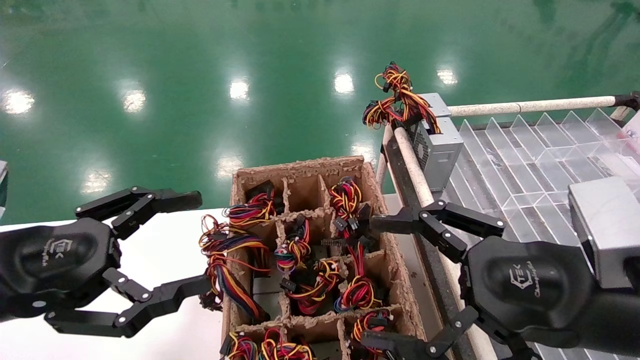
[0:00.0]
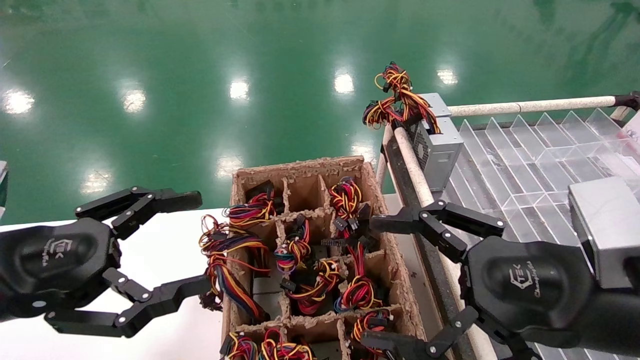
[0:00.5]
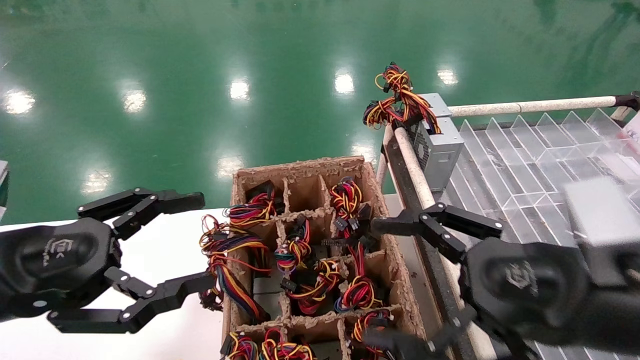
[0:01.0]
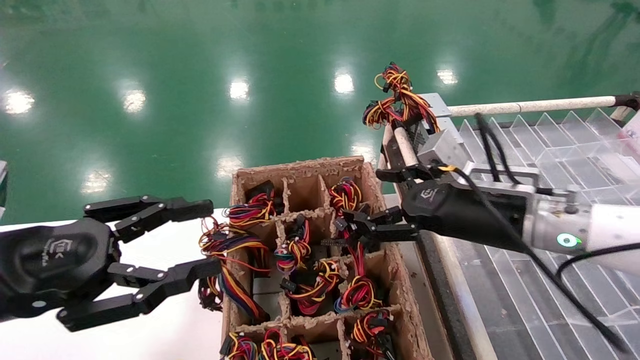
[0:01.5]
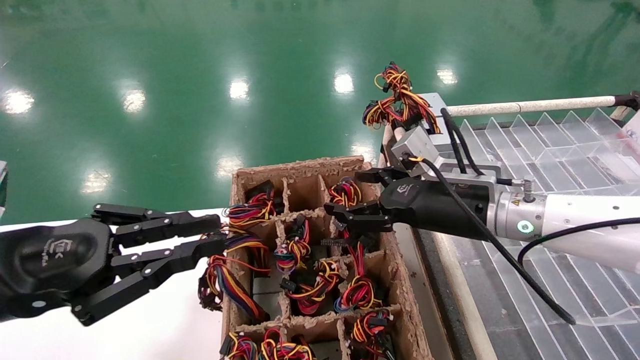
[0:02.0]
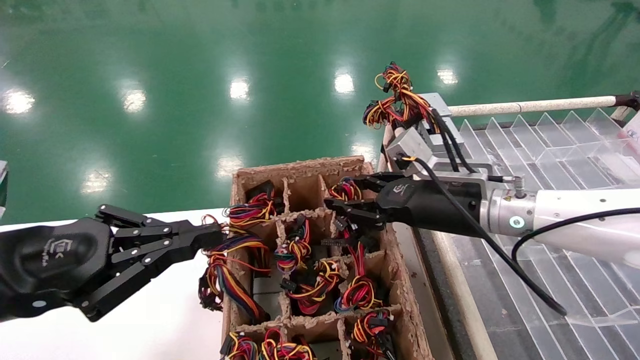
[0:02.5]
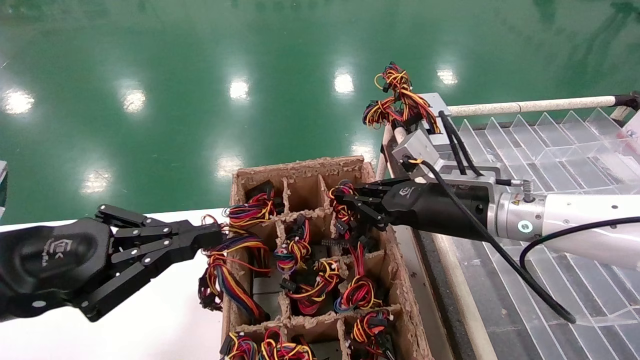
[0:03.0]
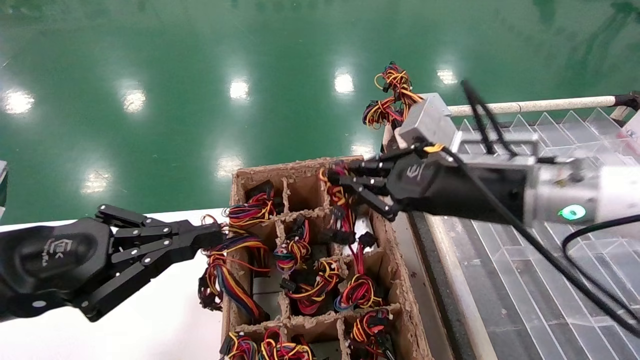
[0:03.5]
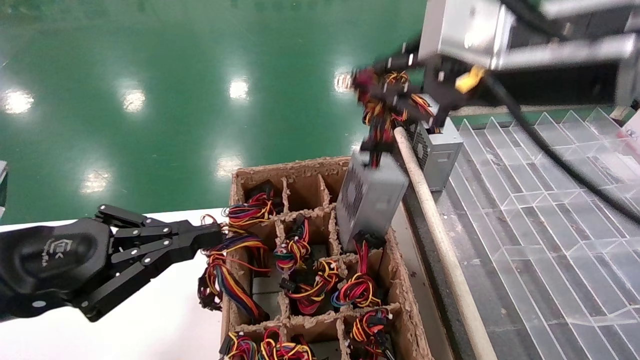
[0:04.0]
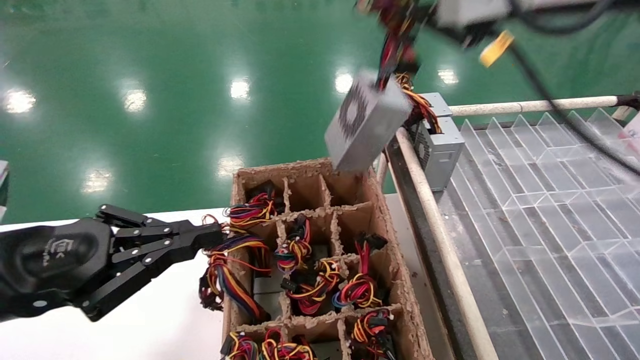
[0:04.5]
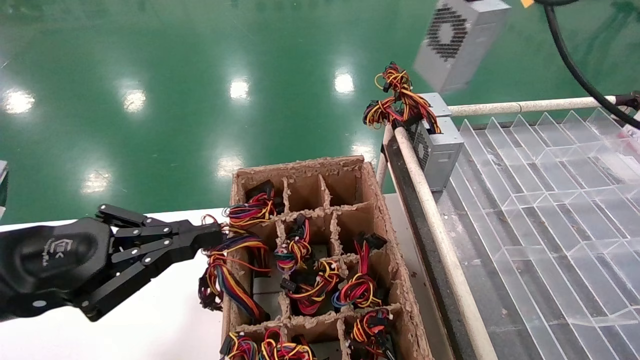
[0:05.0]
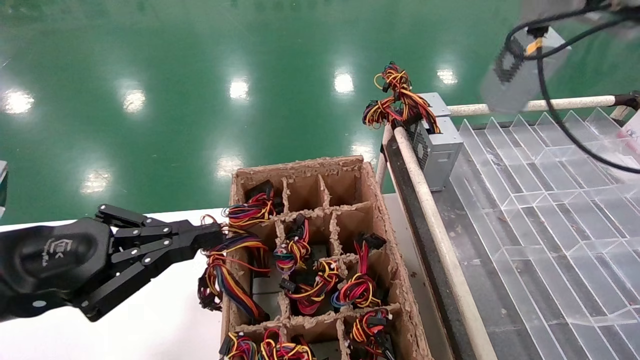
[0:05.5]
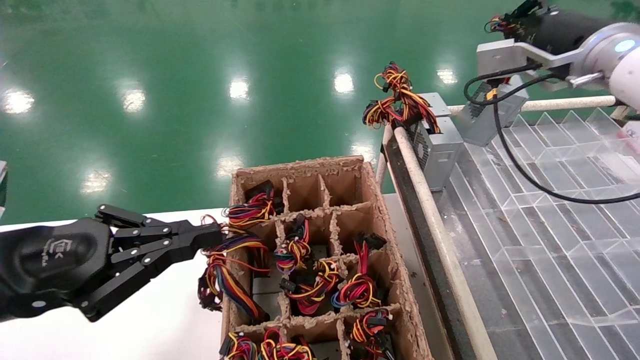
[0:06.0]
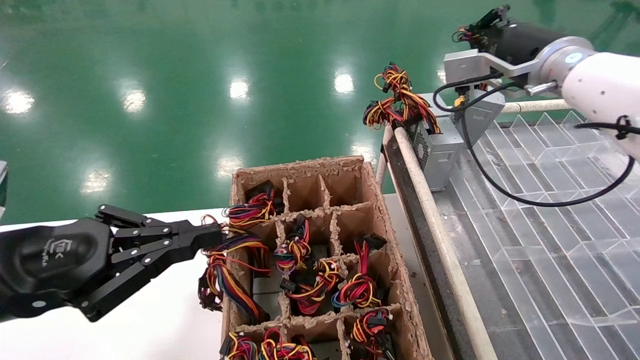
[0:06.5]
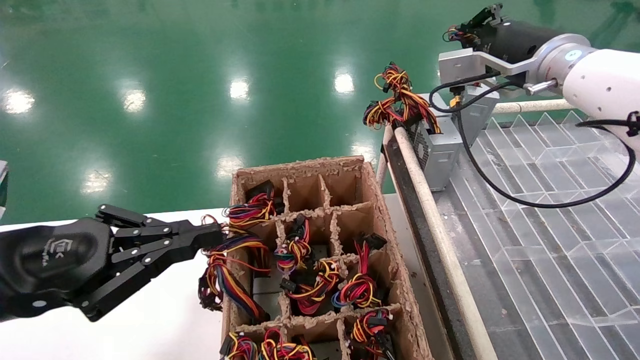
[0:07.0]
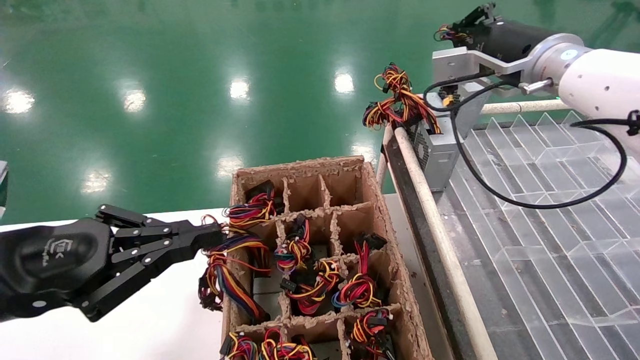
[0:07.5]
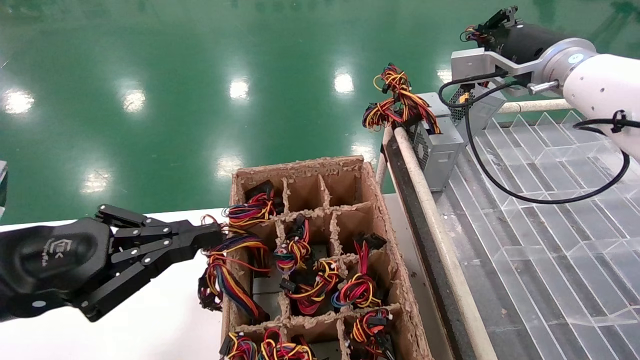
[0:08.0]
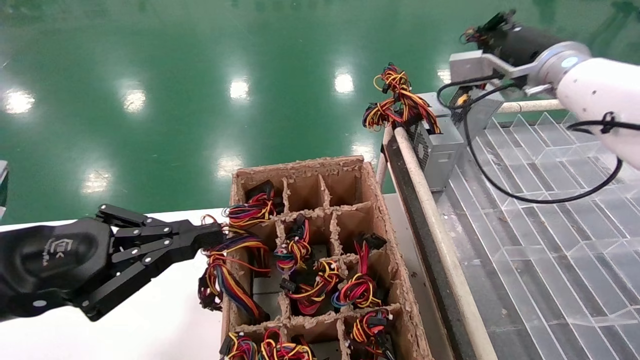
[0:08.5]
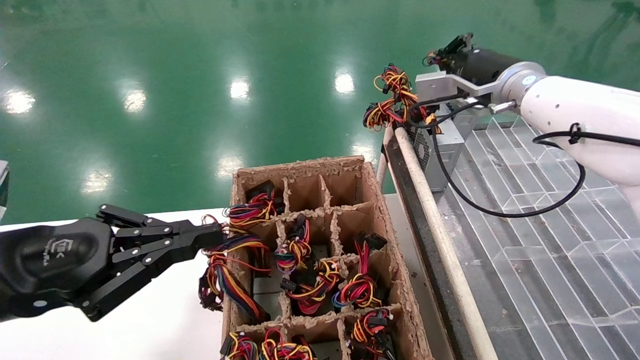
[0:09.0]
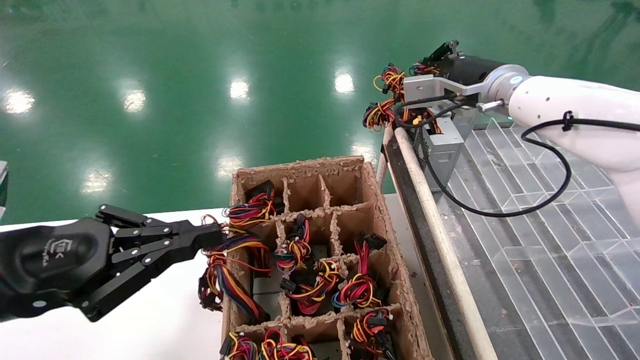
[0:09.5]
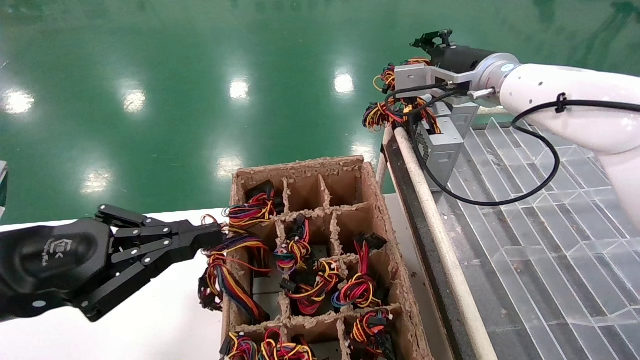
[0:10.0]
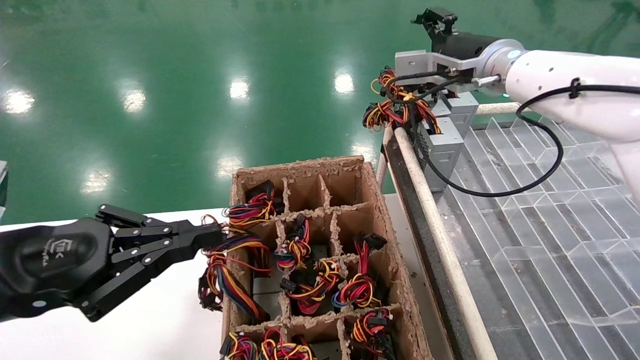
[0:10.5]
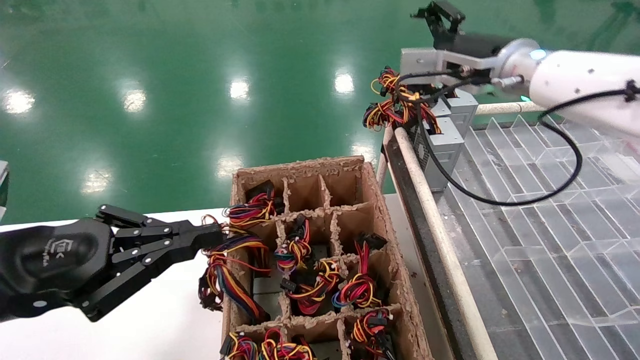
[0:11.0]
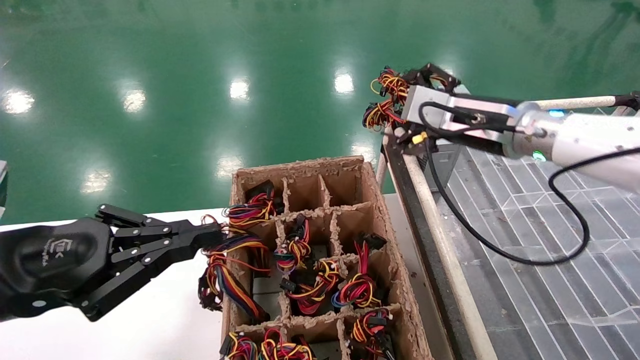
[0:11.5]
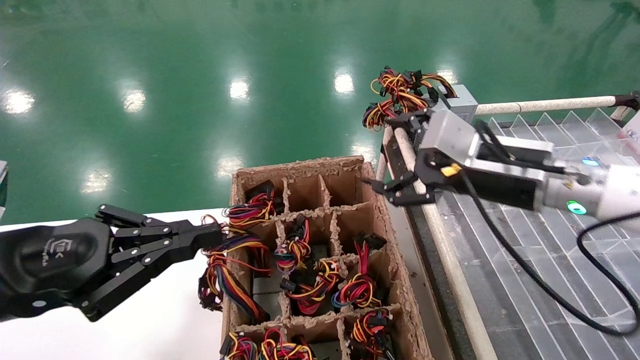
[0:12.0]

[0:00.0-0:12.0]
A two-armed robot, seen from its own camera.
Step, 0:01.5 to 0:03.0: Grab the main unit power supply from the containment box.
Step, 0:03.5 to 0:10.5: Place the main unit power supply in the designated area.
0:00.0 to 0:02.0: The right gripper goes roughly 15 cm forward. Meanwhile the left gripper closes its fingers.
0:02.0 to 0:04.0: The right gripper heads upward and backward, covering approximately 20 cm, and closes its fingers.
0:04.0 to 0:06.0: The right gripper goes some 15 cm forward and to the right.
0:06.0 to 0:08.0: There are only small adjustments of the grippers.
0:08.0 to 0:10.0: The right gripper is displaced to the left by about 5 cm.
0:10.0 to 0:12.0: The right gripper heads backward and downward, covering approximately 15 cm, and opens up.

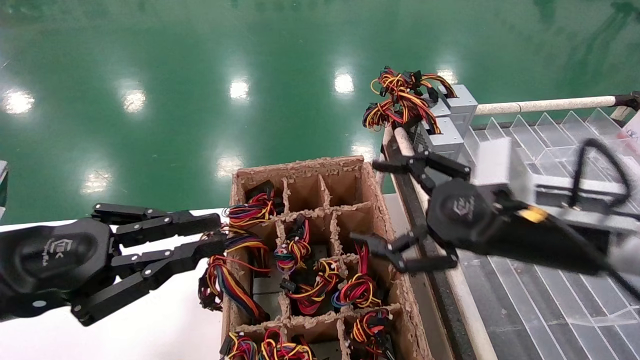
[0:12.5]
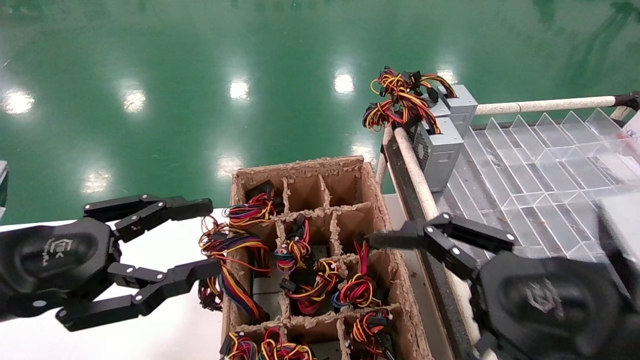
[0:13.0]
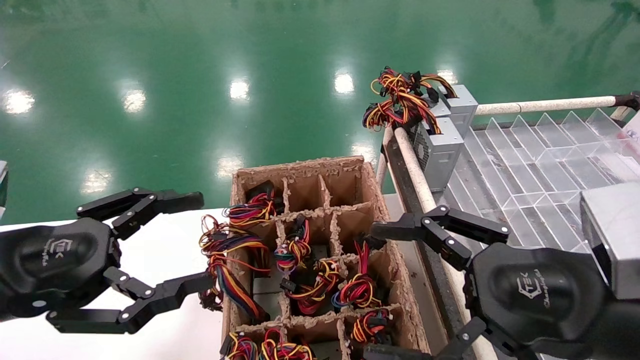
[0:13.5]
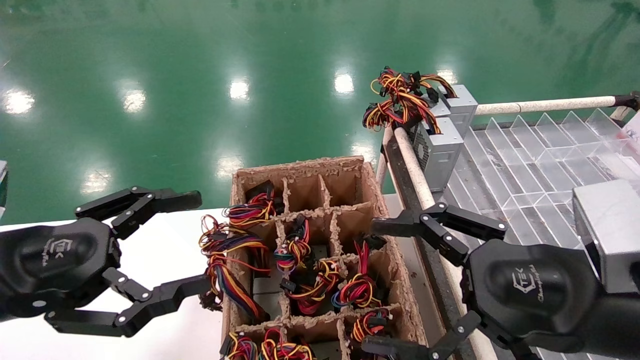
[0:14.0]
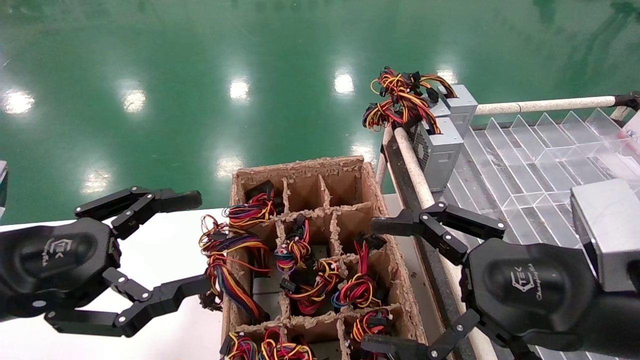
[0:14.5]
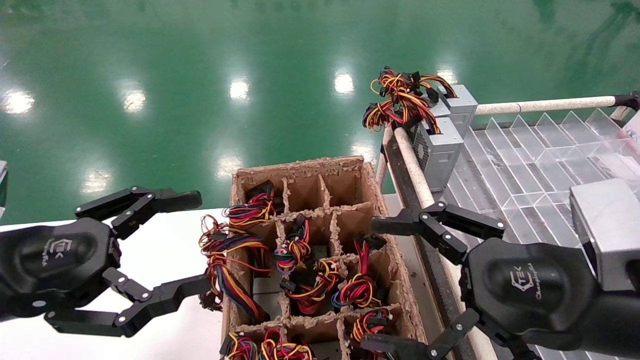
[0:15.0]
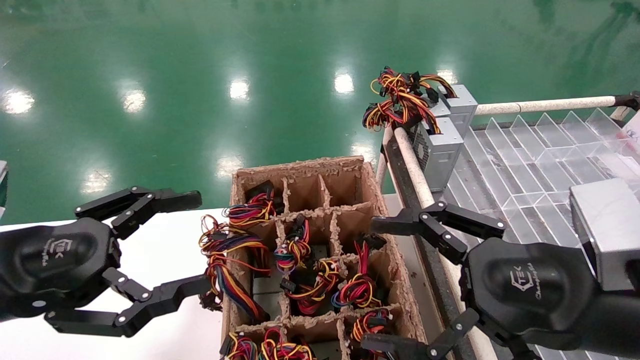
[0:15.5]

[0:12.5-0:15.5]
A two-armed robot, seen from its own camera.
0:12.5 to 0:14.0: The left gripper opens up, while the right gripper heads backward, covering about 5 cm.
0:14.0 to 0:15.5: Both grippers stay about where they are.

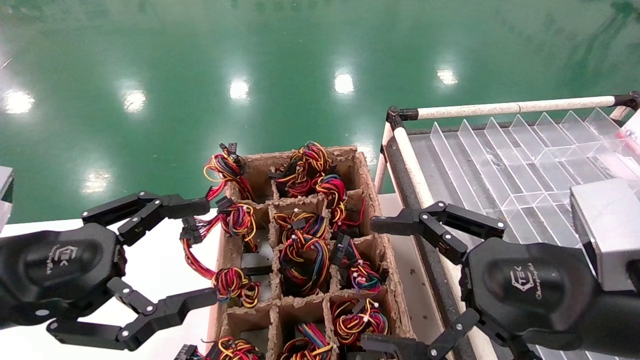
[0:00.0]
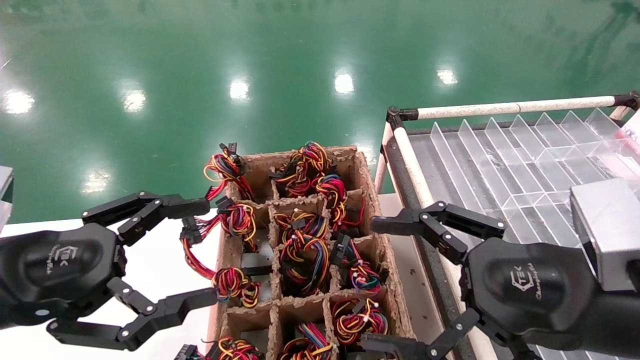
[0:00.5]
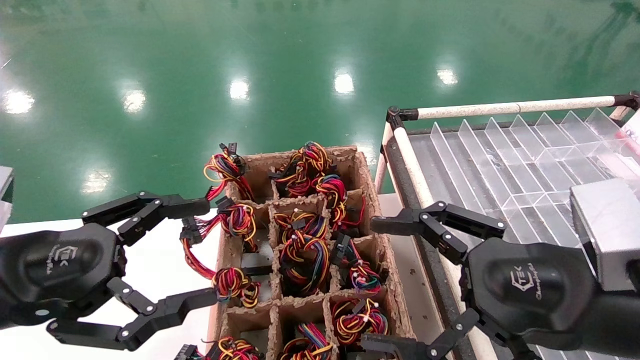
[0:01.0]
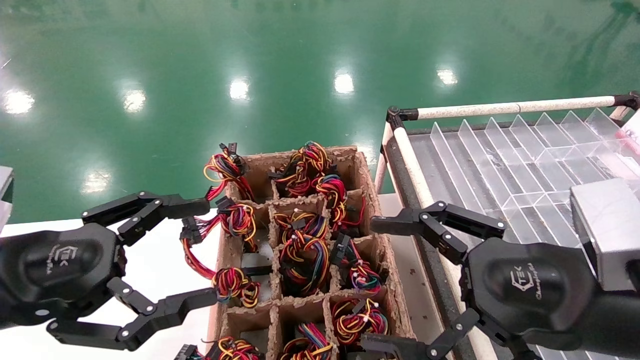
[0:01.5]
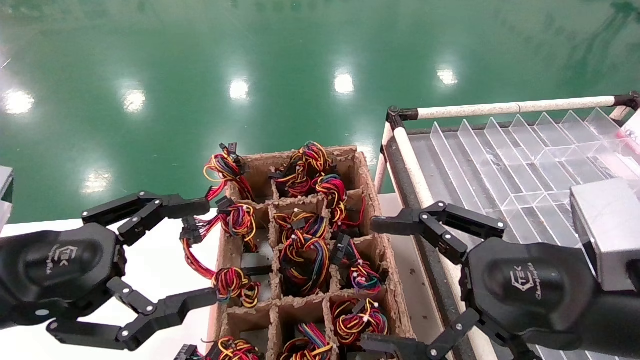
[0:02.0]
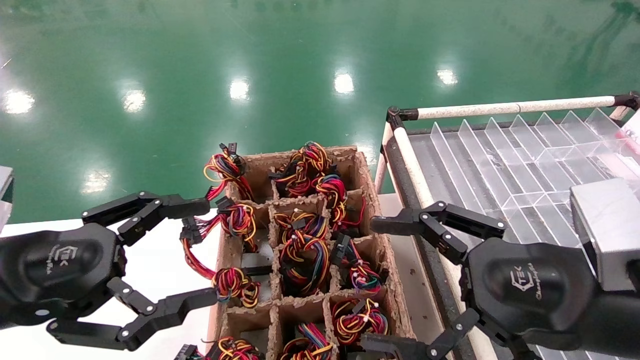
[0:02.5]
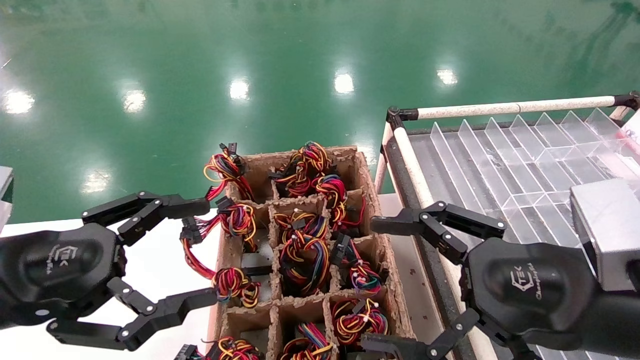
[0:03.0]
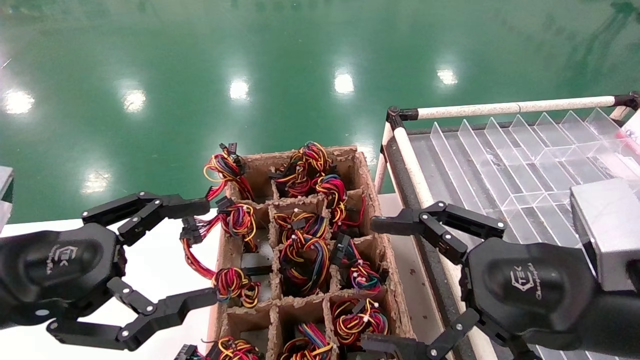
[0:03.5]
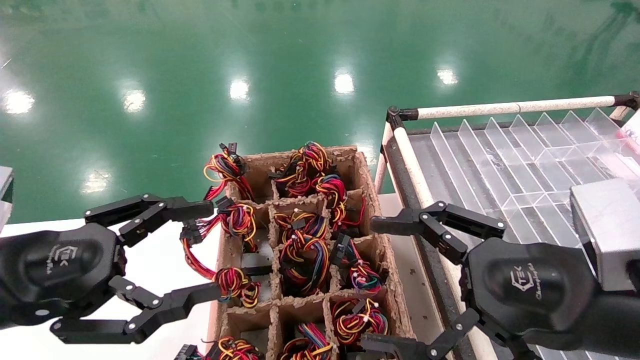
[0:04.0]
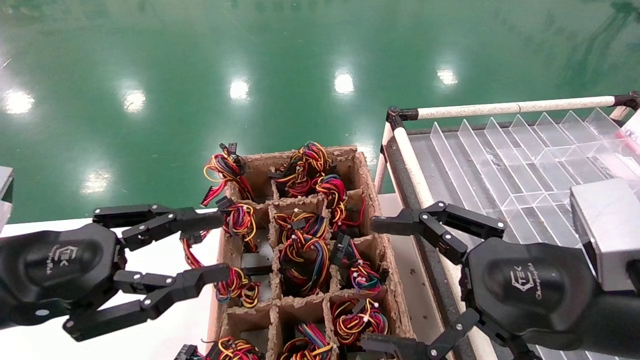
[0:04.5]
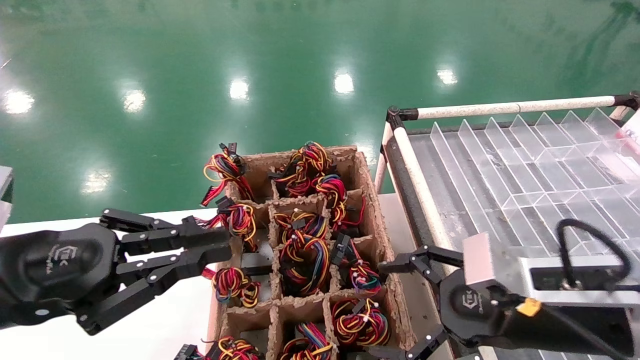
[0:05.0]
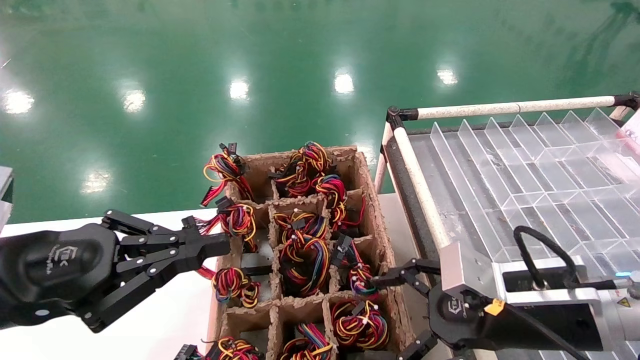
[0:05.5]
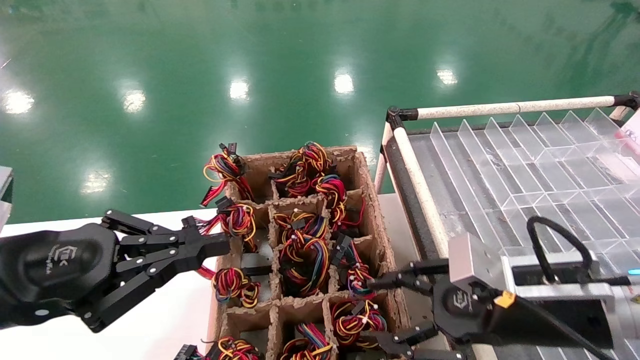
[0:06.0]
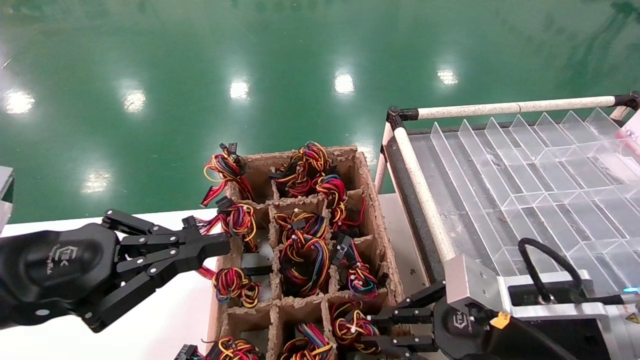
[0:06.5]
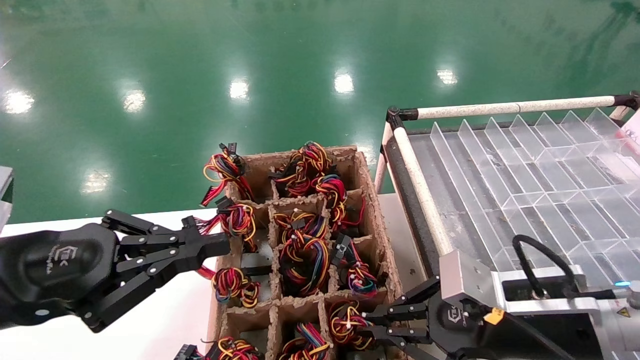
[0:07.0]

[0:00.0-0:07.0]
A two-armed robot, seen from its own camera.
Step, 0:05.0 to 0:06.5: Grab the main unit power supply from the containment box.
0:00.0 to 0:03.5: Neither gripper changes place.
0:03.5 to 0:05.0: The right gripper shifts by some 5 cm, while the left gripper closes.
0:05.0 to 0:07.0: The right gripper closes.
